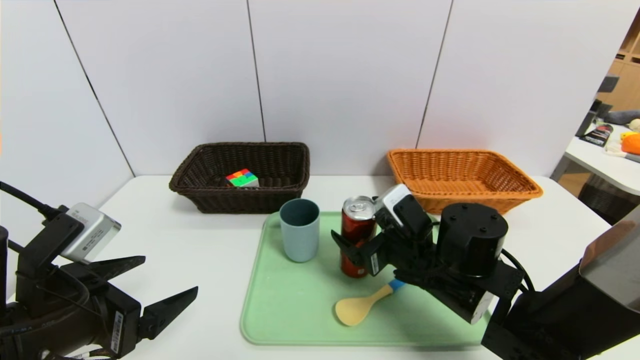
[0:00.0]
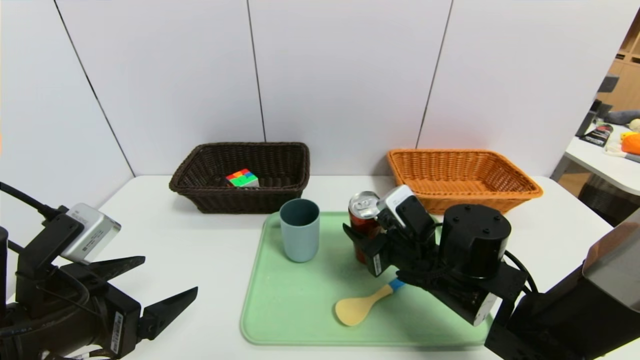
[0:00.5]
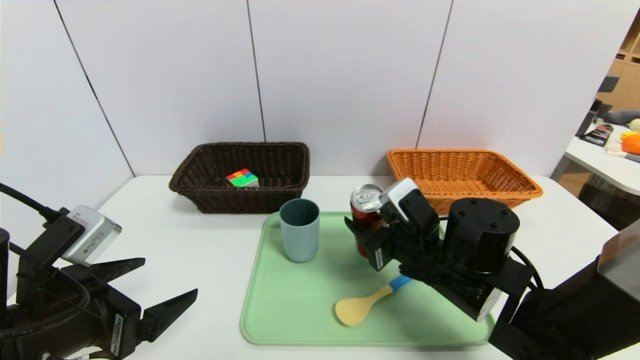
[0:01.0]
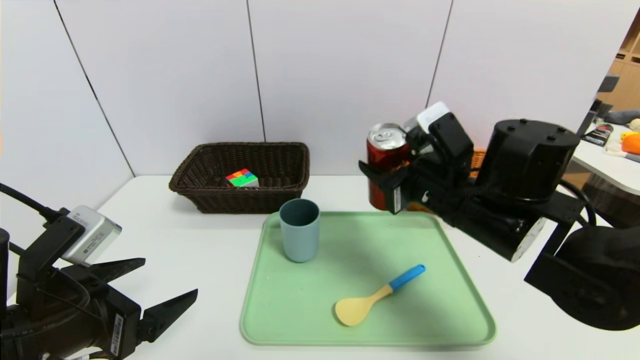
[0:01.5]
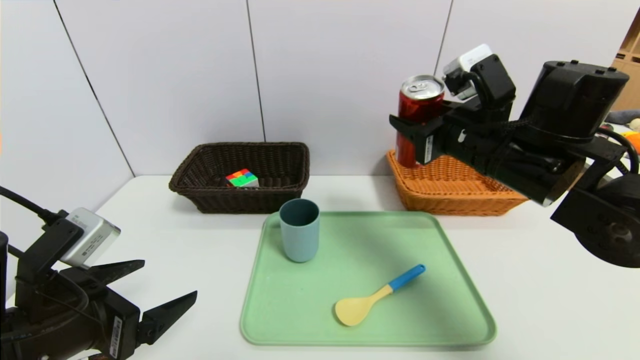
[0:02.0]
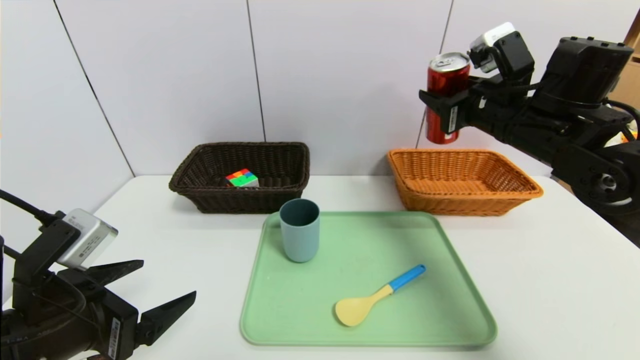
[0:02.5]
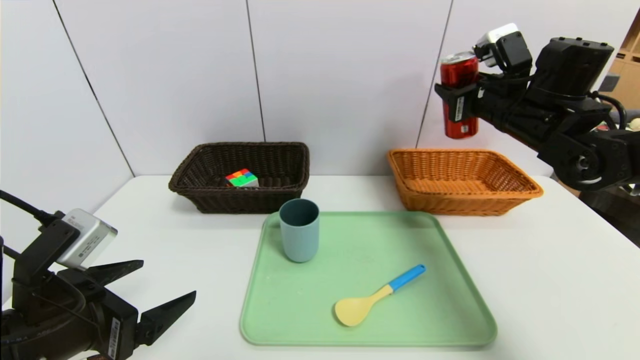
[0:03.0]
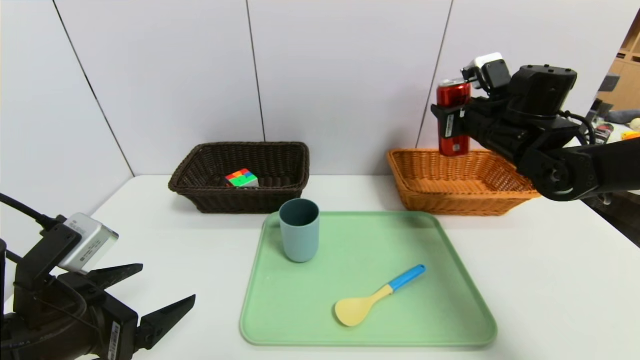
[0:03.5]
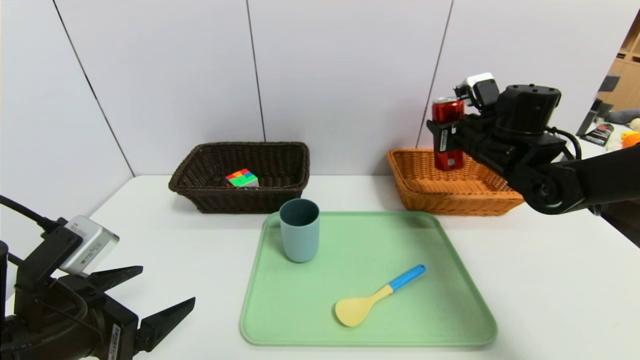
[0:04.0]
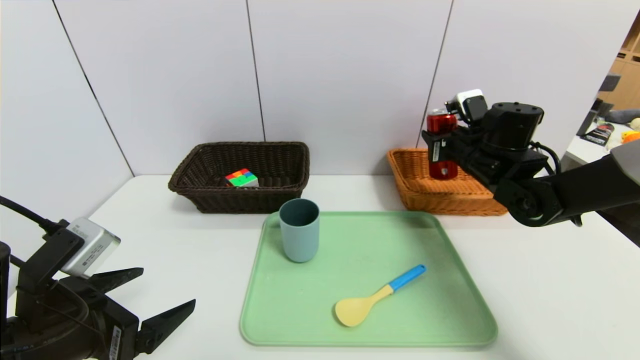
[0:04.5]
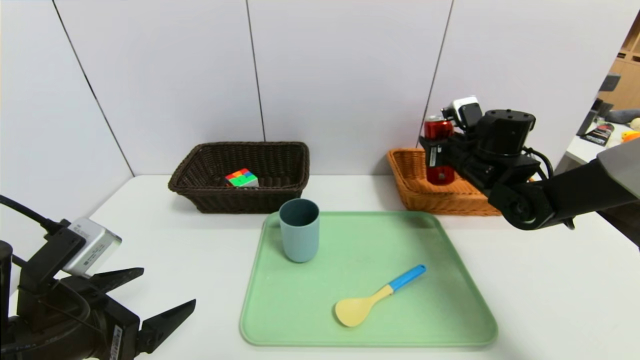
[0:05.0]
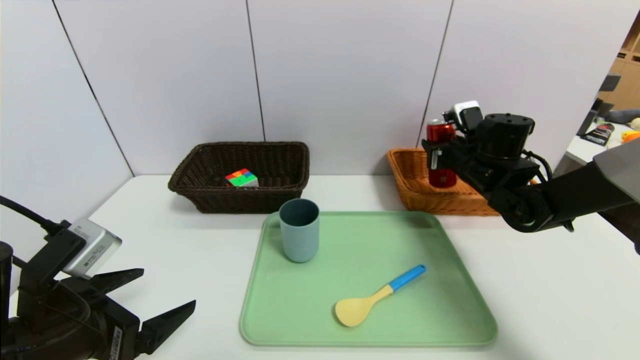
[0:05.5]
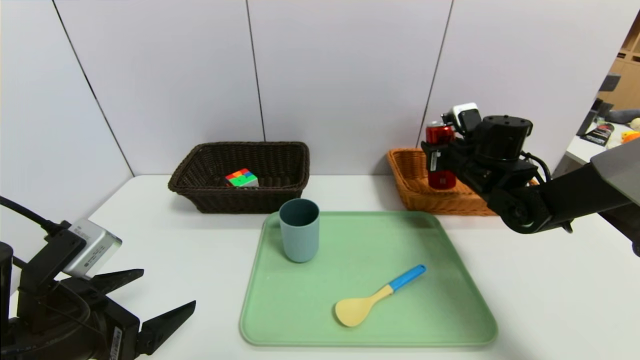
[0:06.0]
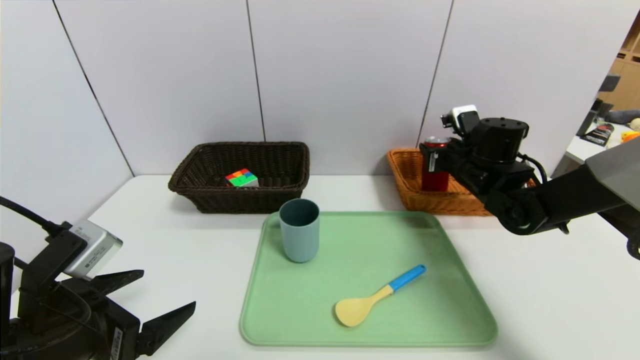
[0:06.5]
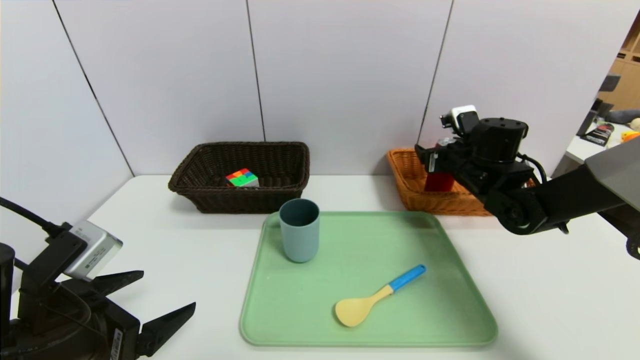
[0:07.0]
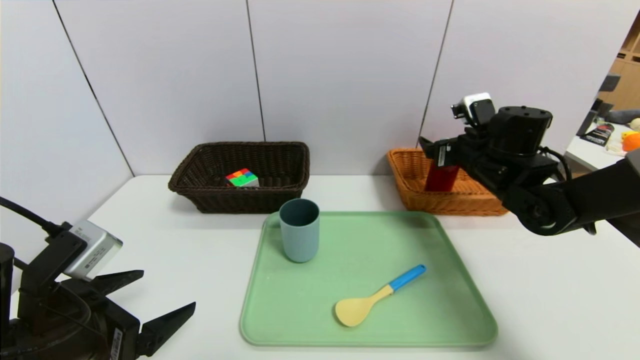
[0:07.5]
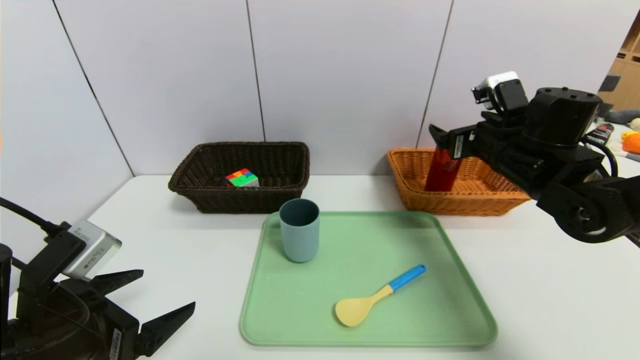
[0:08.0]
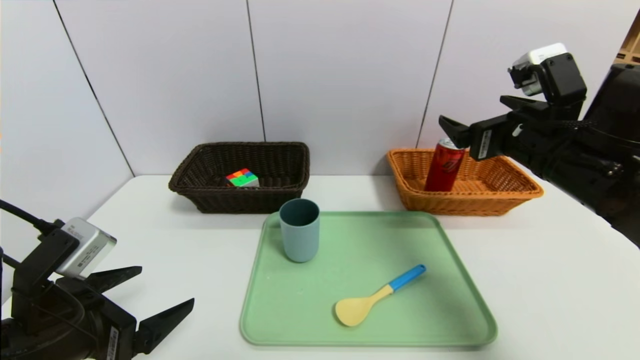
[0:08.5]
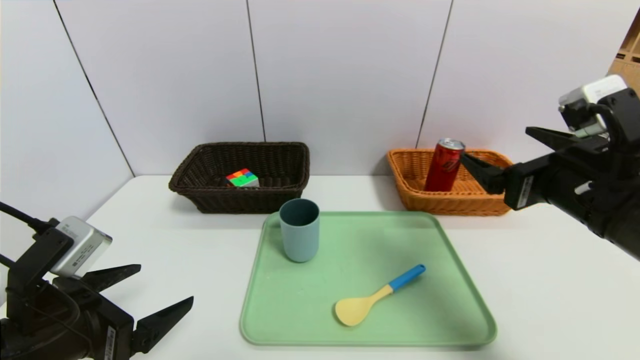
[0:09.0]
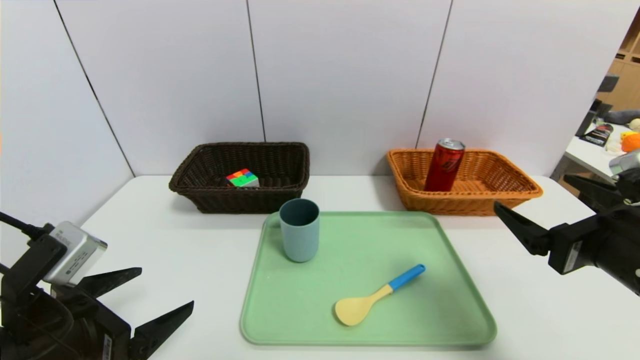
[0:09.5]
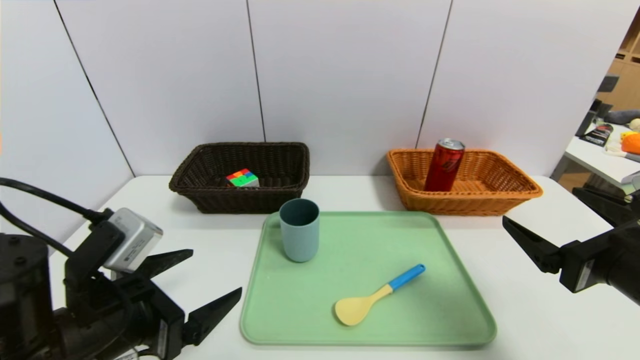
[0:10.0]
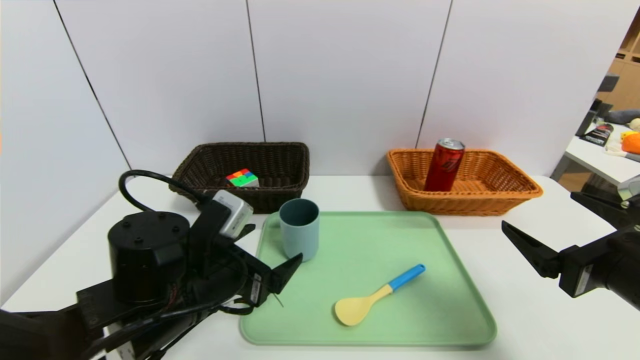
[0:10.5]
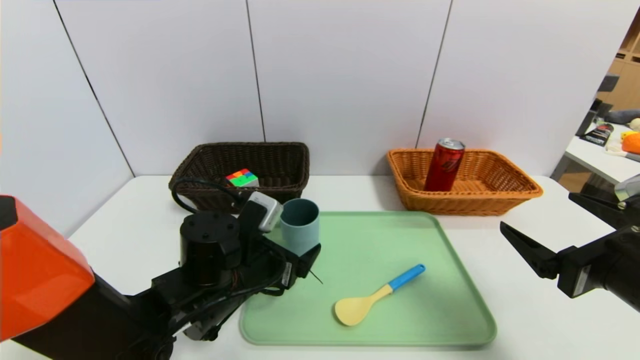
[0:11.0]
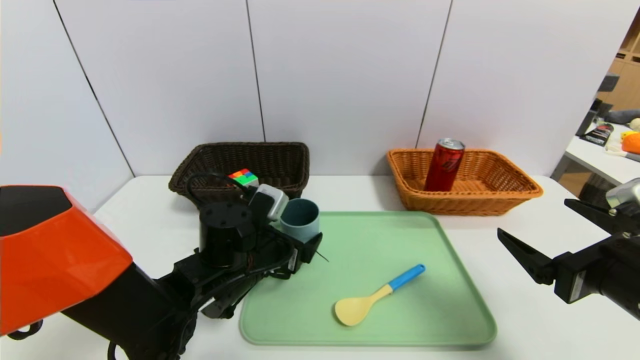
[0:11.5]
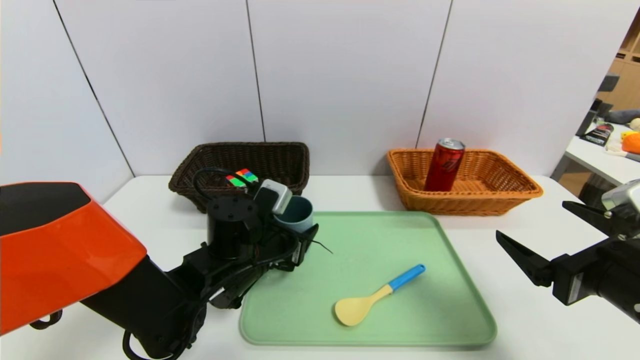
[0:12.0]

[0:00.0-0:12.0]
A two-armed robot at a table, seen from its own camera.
Task of the whole recording: place the food in the right basket with the right gripper, and place the non food items in the left basket with the left gripper.
Step, 0:00.0 to 0:08.0: Grasp the canned cola and put it in the right basket.
0:00.0 to 0:02.0: The right gripper shifts approximately 15 cm upward and to the right, and closes.
0:02.0 to 0:04.0: The right gripper moves forward and to the right, roughly 10 cm.
0:04.0 to 0:06.0: The right gripper ends up some 5 cm from where it was.
0:06.0 to 0:08.0: The right gripper is displaced backward and upward by about 10 cm, and opens.
0:08.0 to 0:10.0: The right gripper is displaced backward by about 20 cm.
0:10.0 to 0:12.0: The left gripper moves forward, to the right and downward, roughly 20 cm.

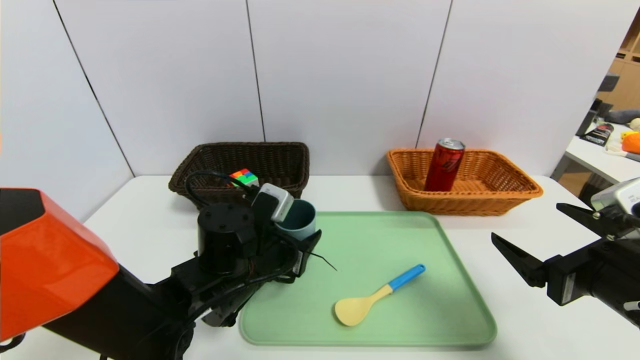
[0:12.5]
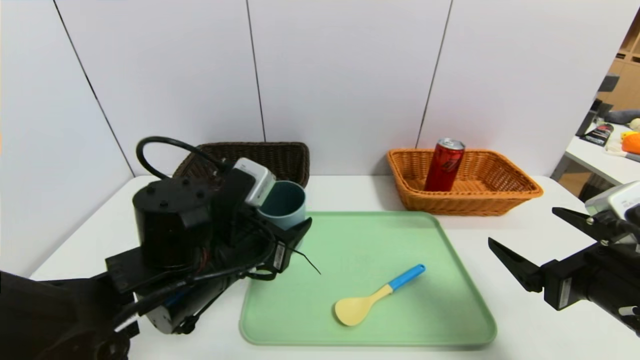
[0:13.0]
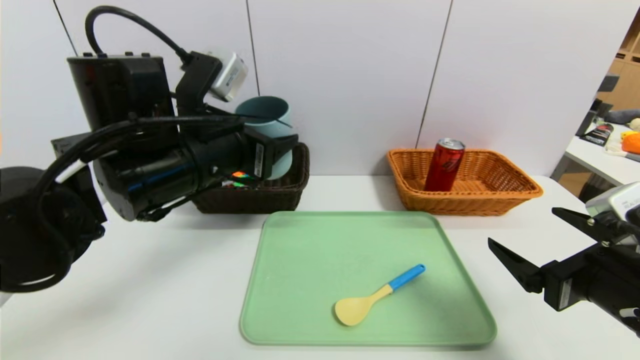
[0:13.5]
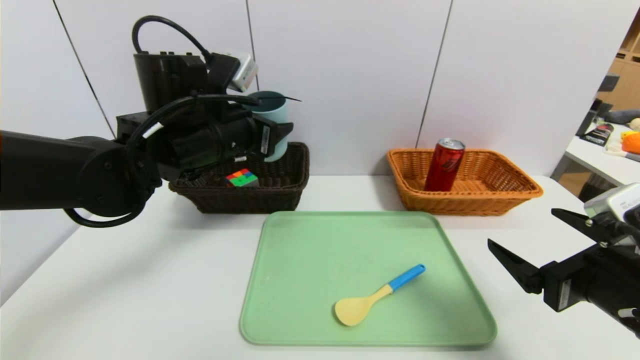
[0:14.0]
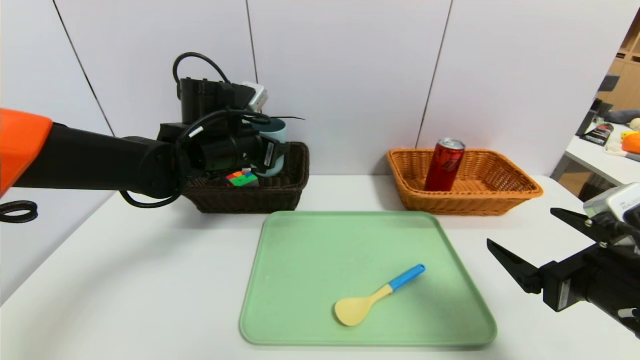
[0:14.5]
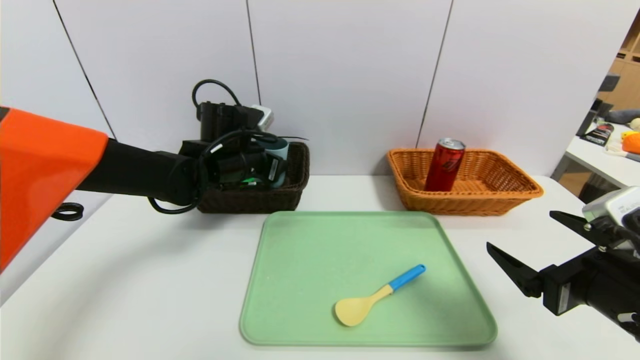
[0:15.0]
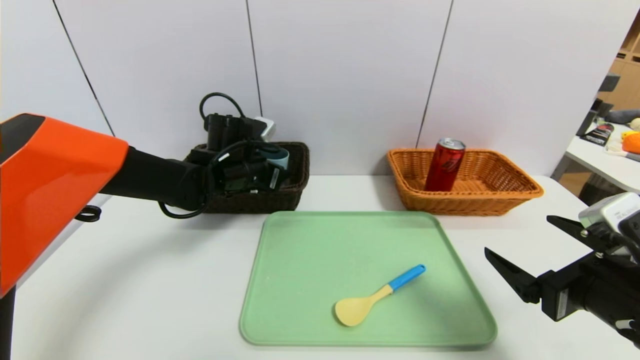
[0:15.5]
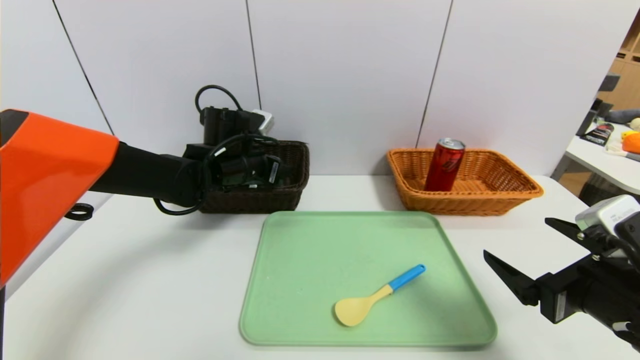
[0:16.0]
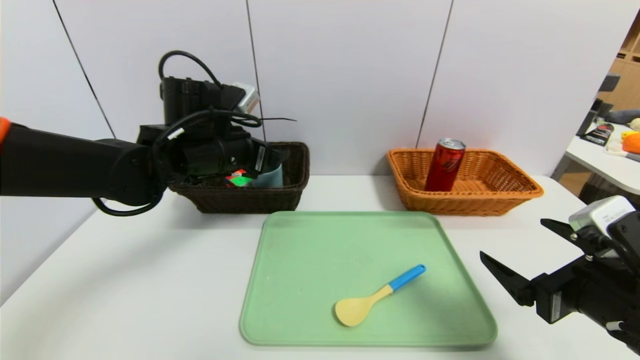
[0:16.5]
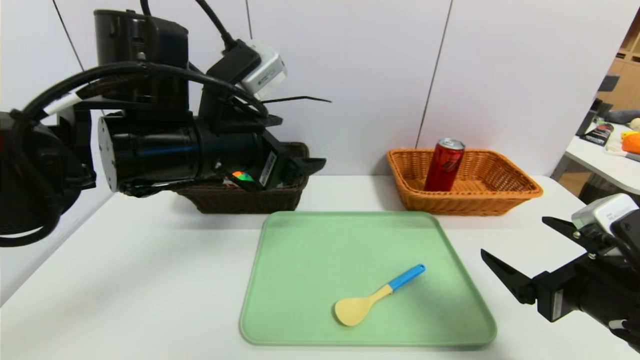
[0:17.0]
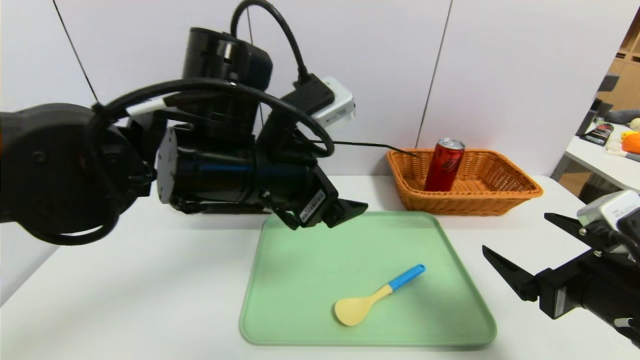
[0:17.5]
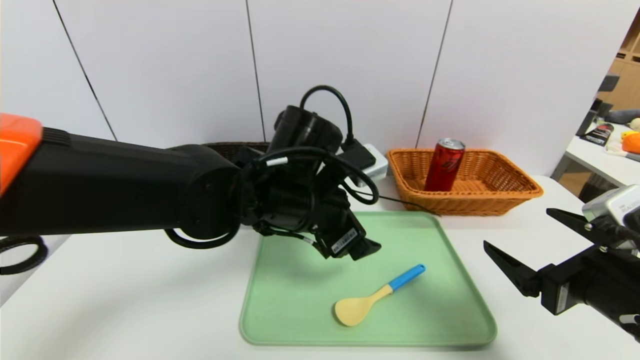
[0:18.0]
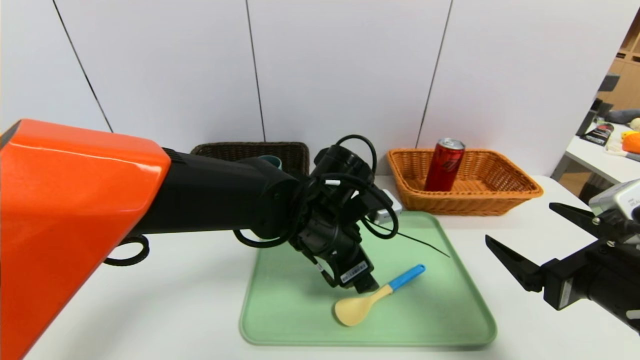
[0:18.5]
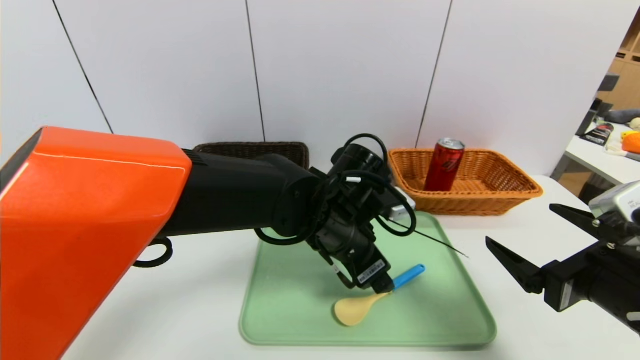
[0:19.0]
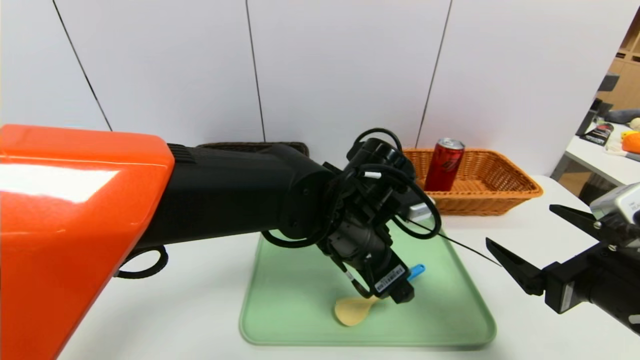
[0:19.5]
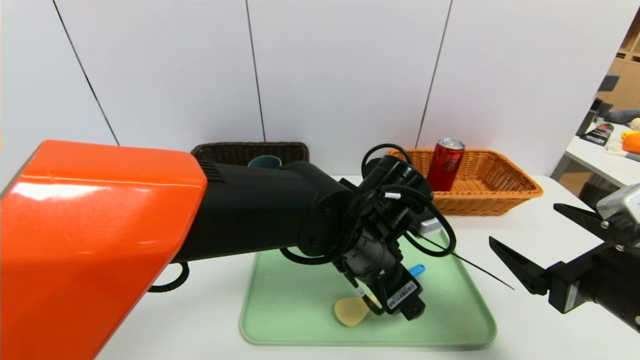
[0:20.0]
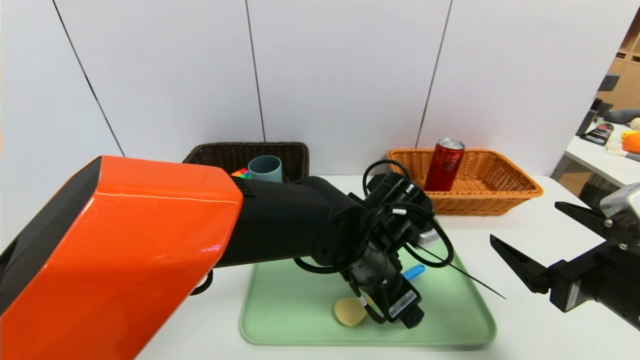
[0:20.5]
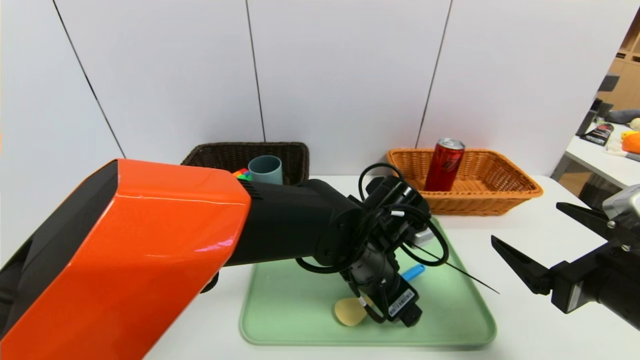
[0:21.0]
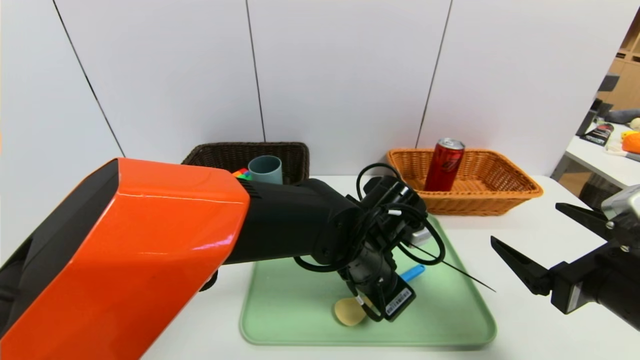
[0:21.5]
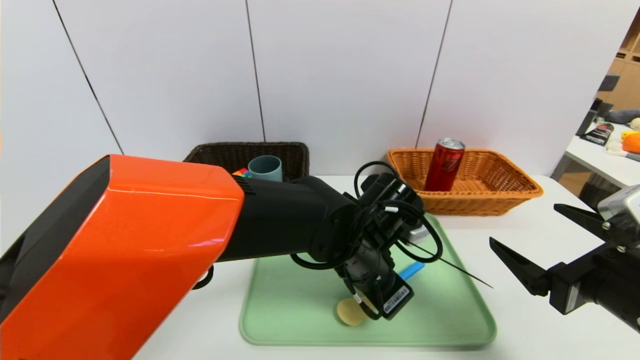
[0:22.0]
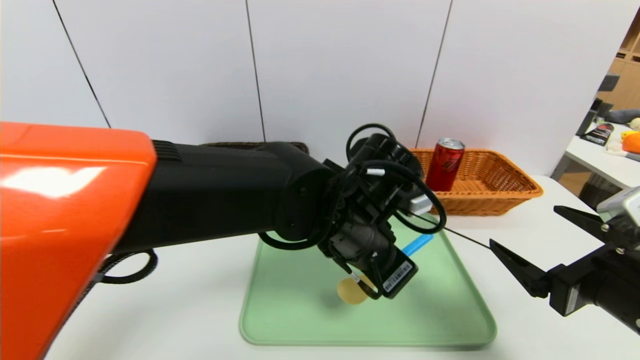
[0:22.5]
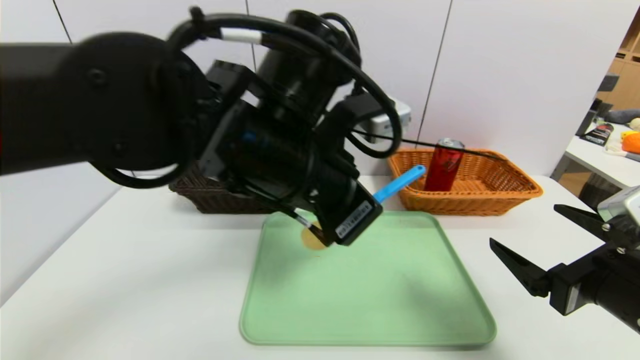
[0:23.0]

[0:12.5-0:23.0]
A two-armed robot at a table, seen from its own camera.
Task of the whole recording: place the food in the right basket with the right gripper, and place the non food items in the left basket with the left gripper.
Step, 0:12.5 to 0:16.5: Grasp the blue cup and put it in the left basket.
0:12.5 to 0:14.5: The left gripper moves forward and upward, some 15 cm.
0:16.5 to 0:19.0: The left gripper moves to the right and backward, some 20 cm.
0:21.0 to 0:23.0: The left gripper goes approximately 15 cm upward and to the left, and closes its fingers.
